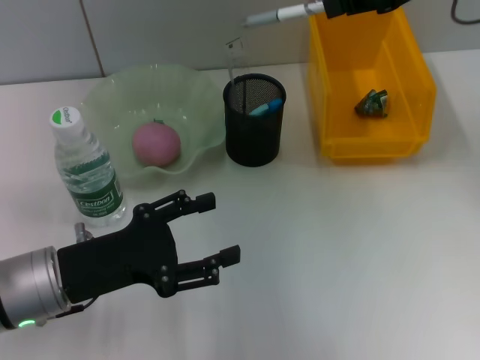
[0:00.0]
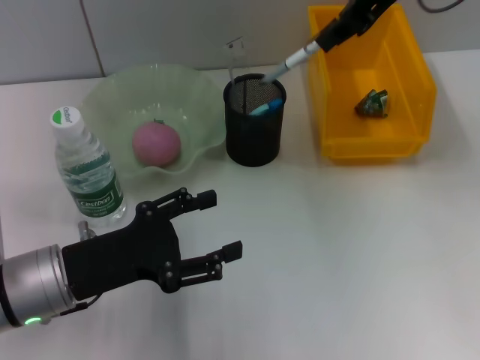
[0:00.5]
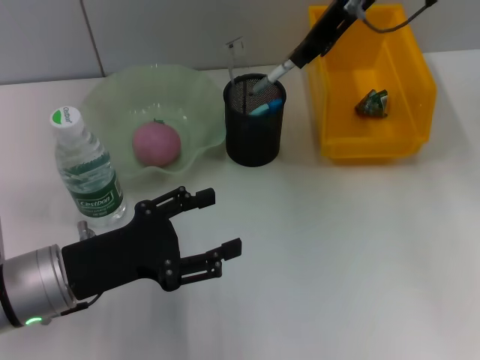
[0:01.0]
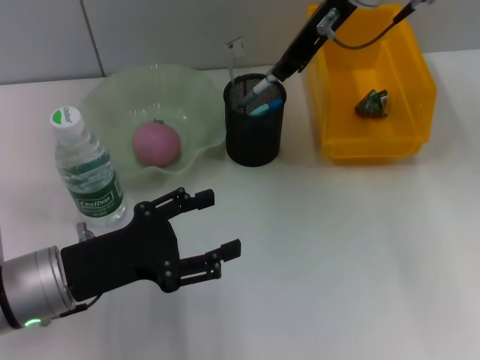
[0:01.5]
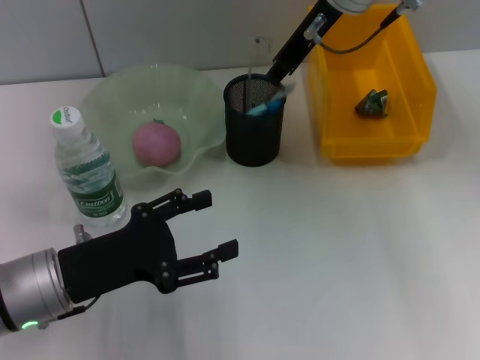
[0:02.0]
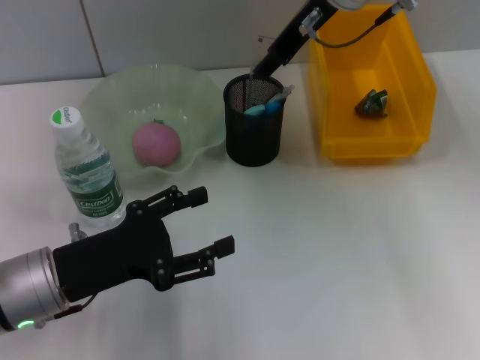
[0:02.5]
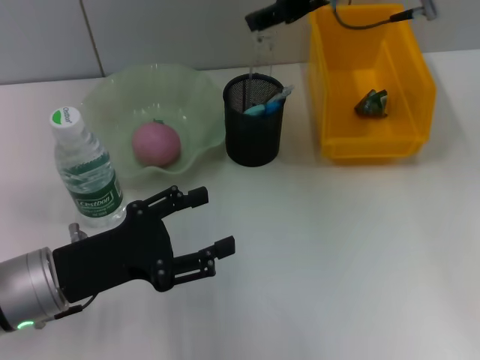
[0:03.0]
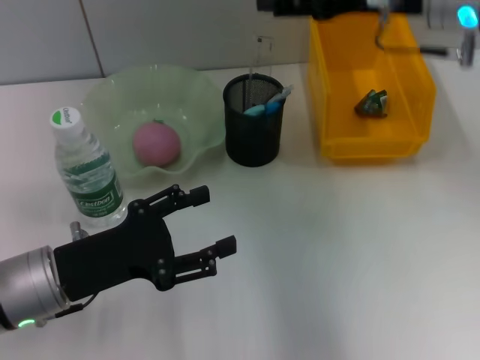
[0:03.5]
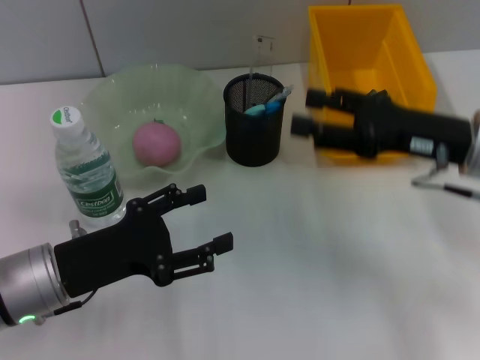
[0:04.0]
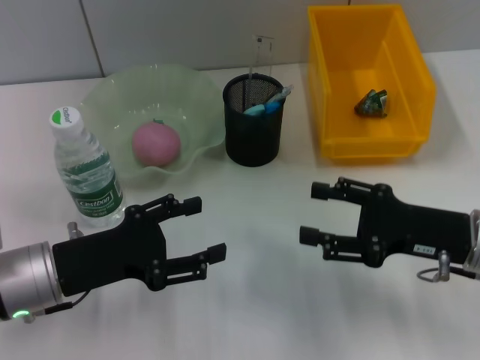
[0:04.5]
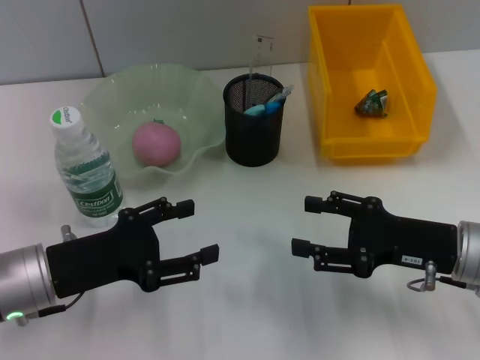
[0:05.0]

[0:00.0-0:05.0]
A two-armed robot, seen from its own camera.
Step, 0.0 to 2.0 s: Place the gray spring-action pen into the pen holder with the right hand.
0.0 to 2.5 s: The right gripper shifts some 15 cm to the left and forward, and opens.
2.5 to 5.0 s: The right gripper moves downward, backward and to the right, approximately 30 cm, and opens its fingers.

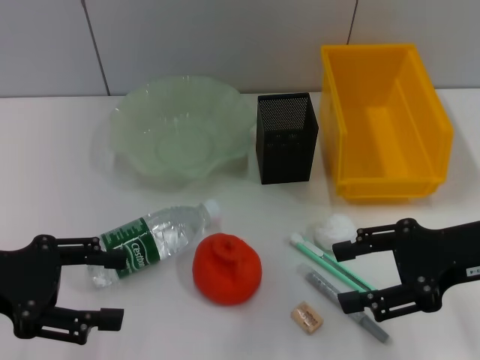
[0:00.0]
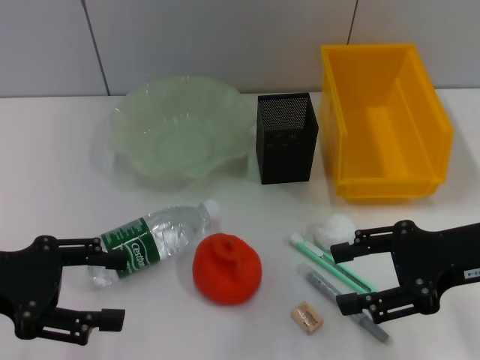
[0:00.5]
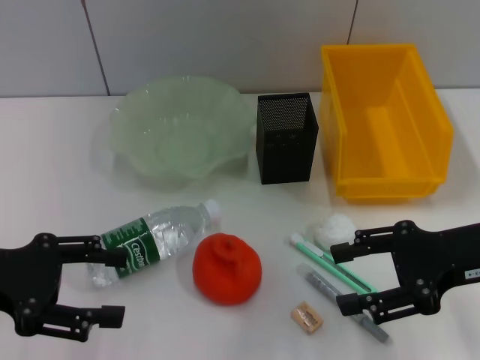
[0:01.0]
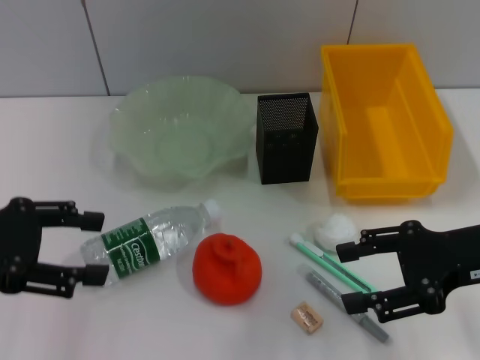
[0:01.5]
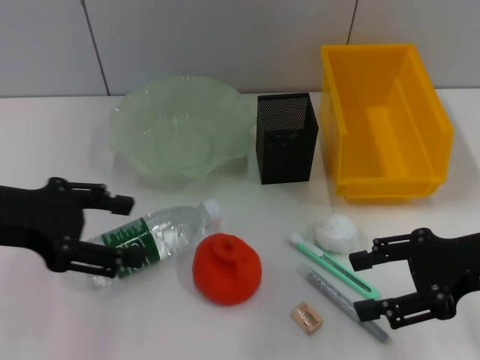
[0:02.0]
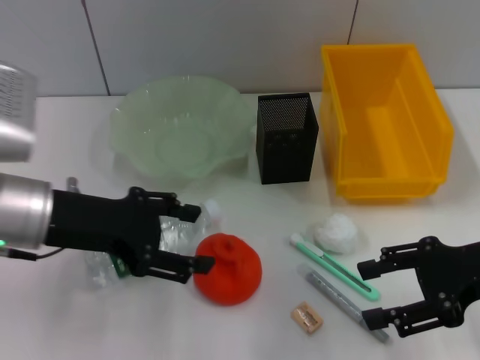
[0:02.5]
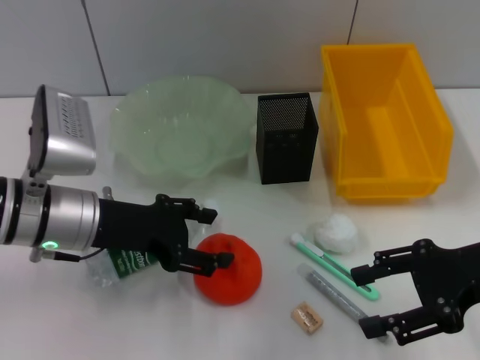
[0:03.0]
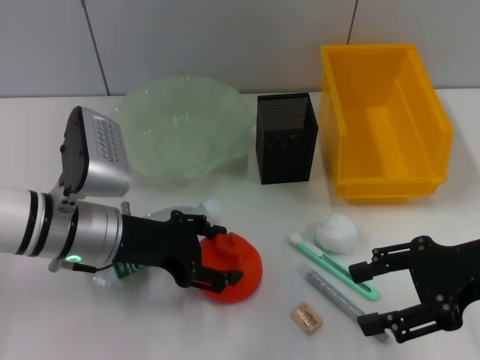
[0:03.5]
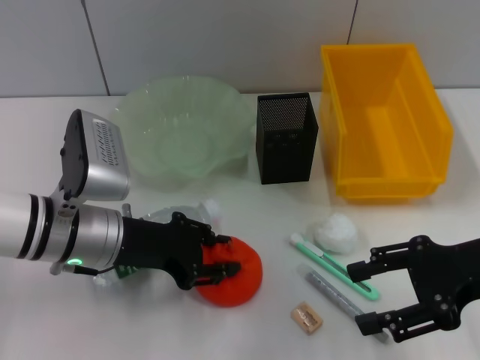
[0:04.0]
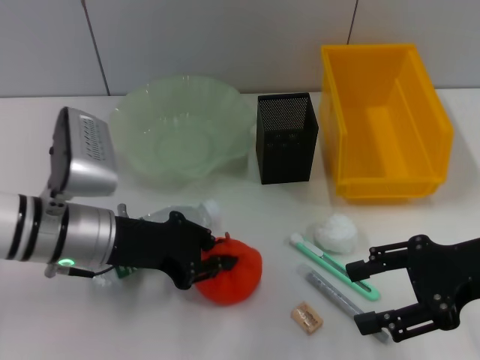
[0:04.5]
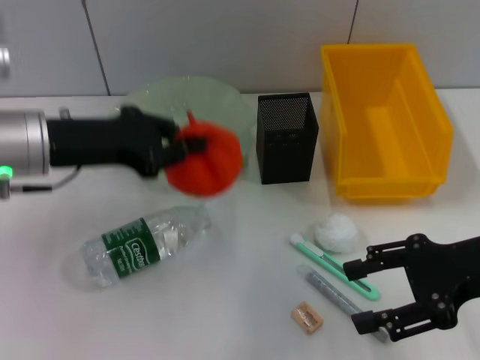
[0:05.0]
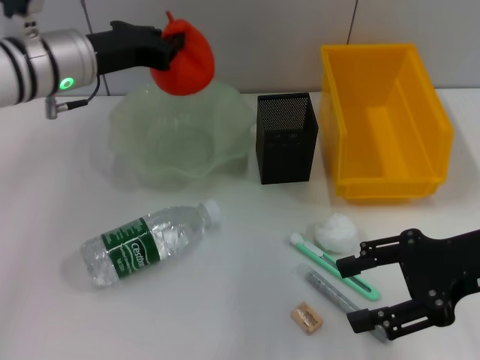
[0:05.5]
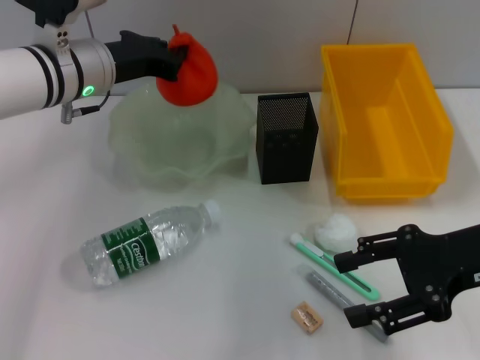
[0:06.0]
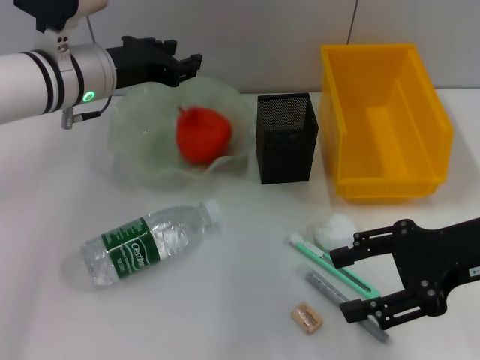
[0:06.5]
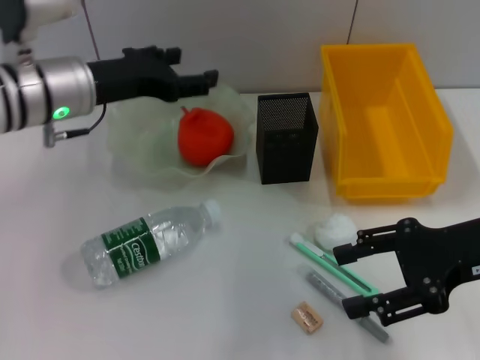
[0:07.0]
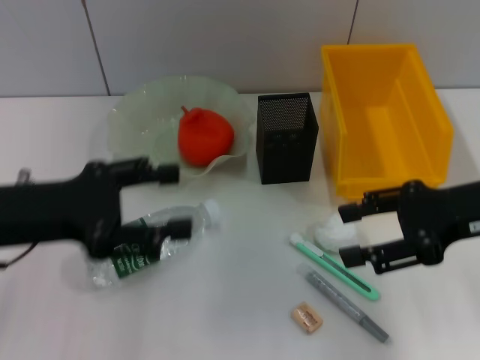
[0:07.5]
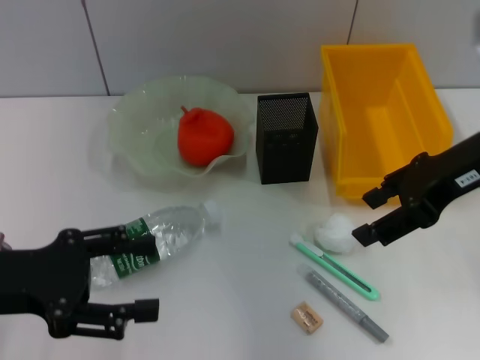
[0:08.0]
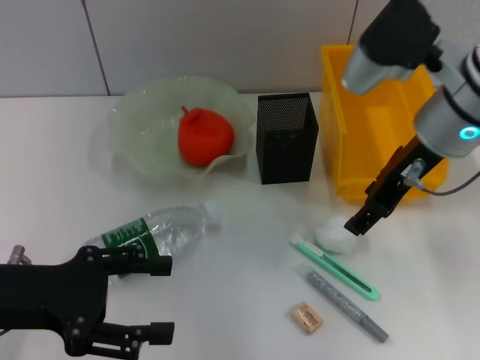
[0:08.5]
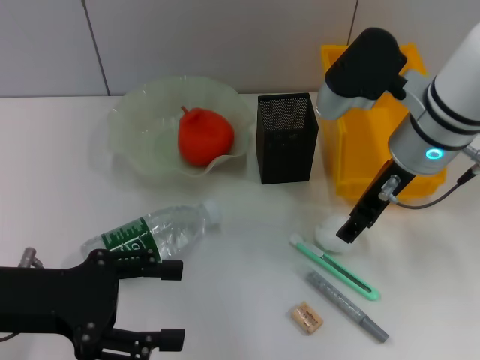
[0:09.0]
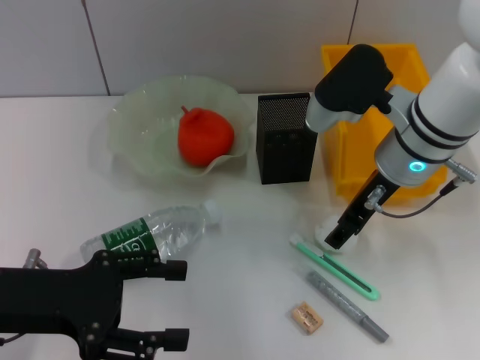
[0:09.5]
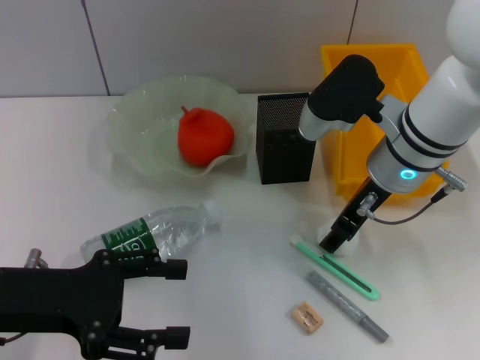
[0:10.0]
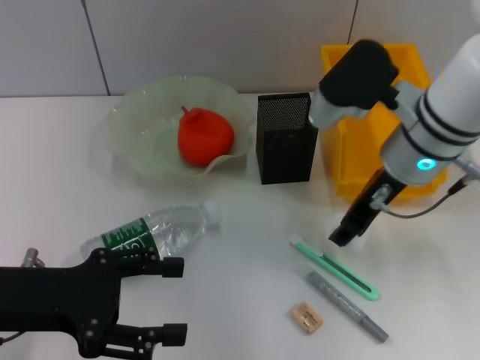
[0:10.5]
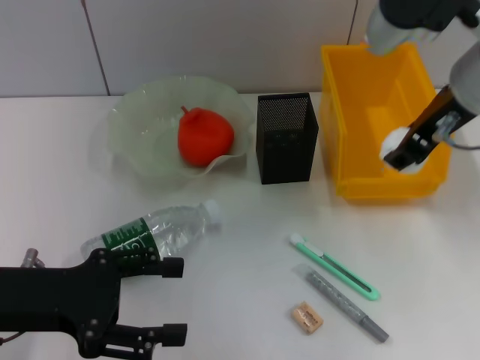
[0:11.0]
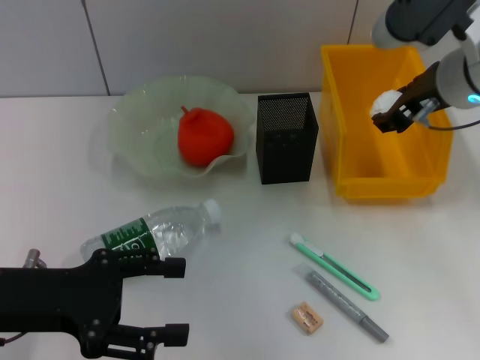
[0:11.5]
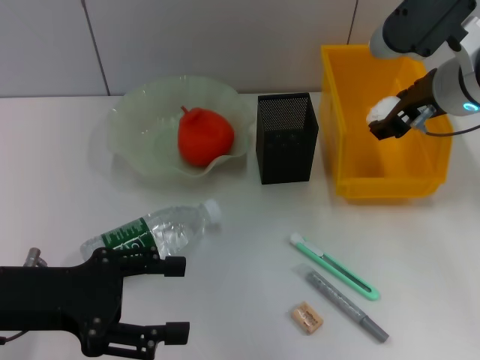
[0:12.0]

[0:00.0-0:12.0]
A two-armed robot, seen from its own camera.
Step, 0.0 to 4.0 s: Grab the orange with the left hand.
Step, 4.5 to 6.5 s: Place the orange into the fruit bowl with the left hand.
Step, 7.0 to 10.0 s: Grab the paper ball with the right hand.
0.0 to 2.0 s: The left gripper moves upward, some 5 cm.
2.0 to 4.0 s: The left gripper travels downward and to the right by roughly 15 cm.
4.0 to 6.0 s: The left gripper moves forward and upward, roughly 15 cm, and closes its fingers.
6.0 to 8.0 s: The left gripper goes roughly 20 cm backward and to the left, and opens, while the right gripper shifts roughly 10 cm upward and forward.
8.0 to 10.0 s: The right gripper shifts roughly 10 cm to the left and downward.
10.0 to 12.0 s: The right gripper heads to the right and upward, covering roughly 5 cm.

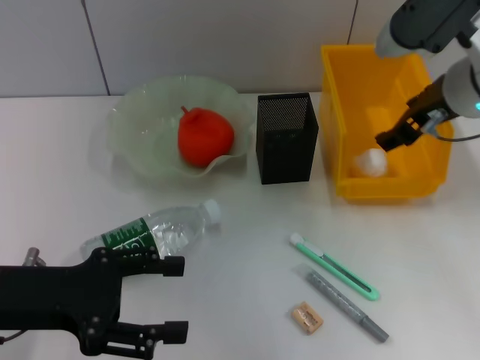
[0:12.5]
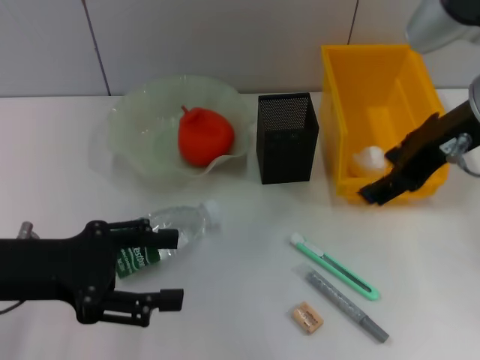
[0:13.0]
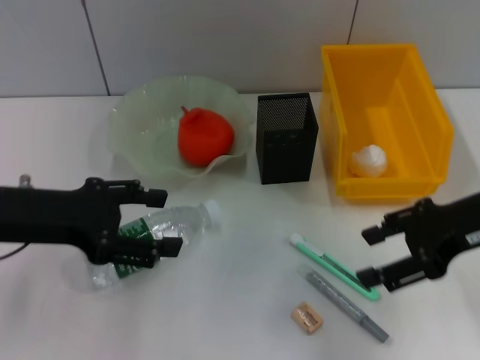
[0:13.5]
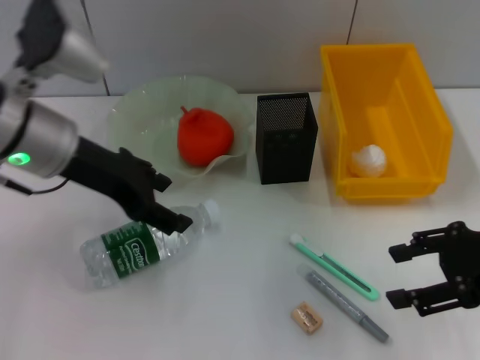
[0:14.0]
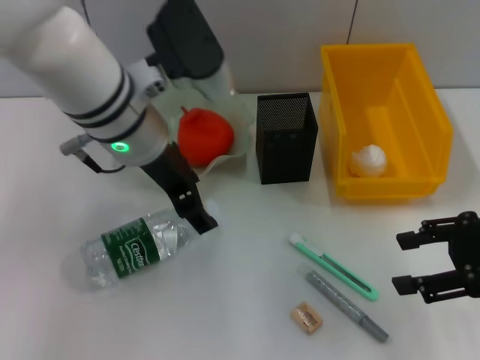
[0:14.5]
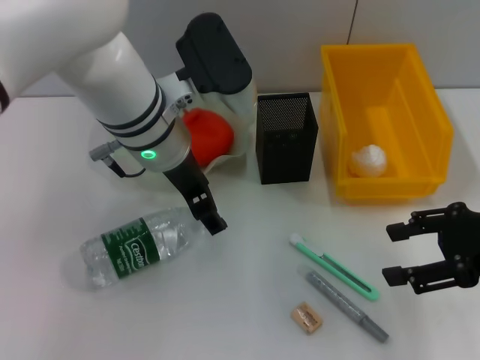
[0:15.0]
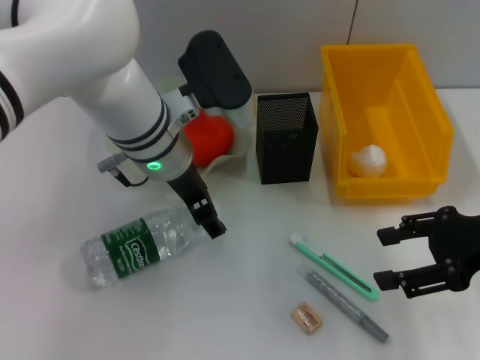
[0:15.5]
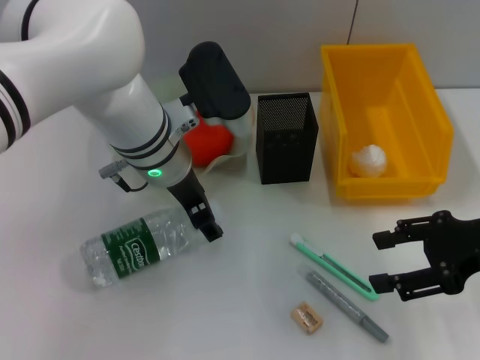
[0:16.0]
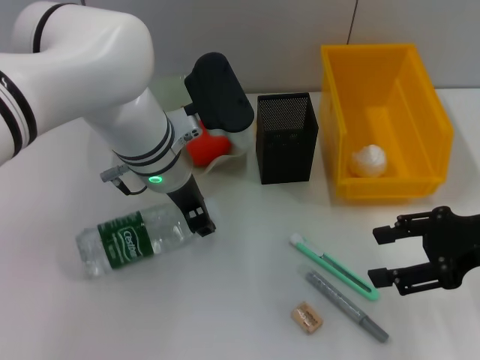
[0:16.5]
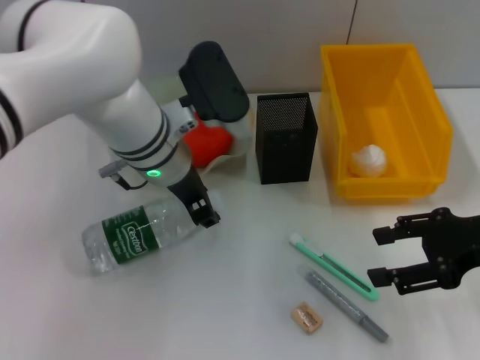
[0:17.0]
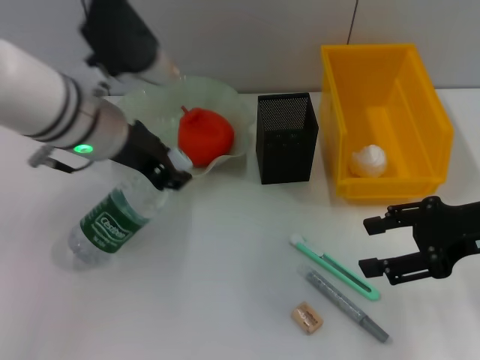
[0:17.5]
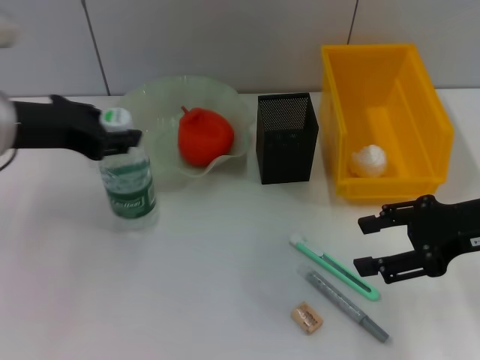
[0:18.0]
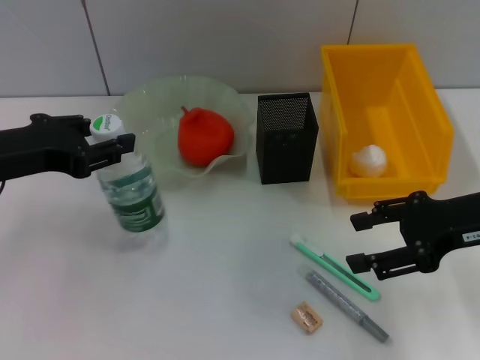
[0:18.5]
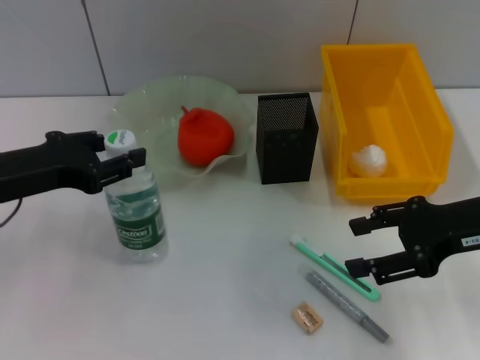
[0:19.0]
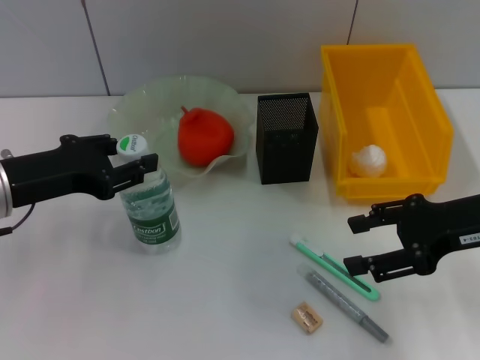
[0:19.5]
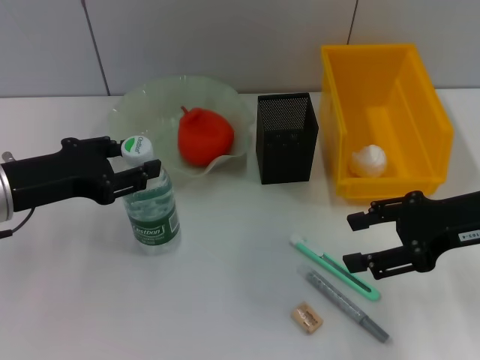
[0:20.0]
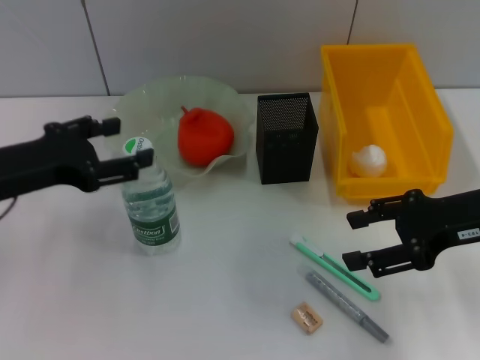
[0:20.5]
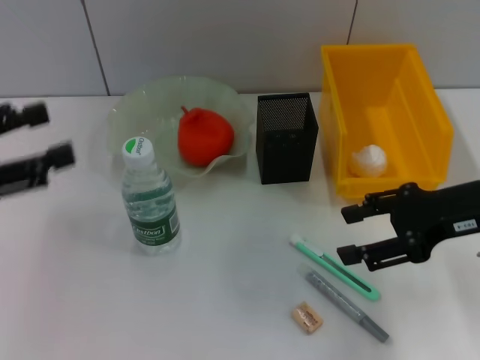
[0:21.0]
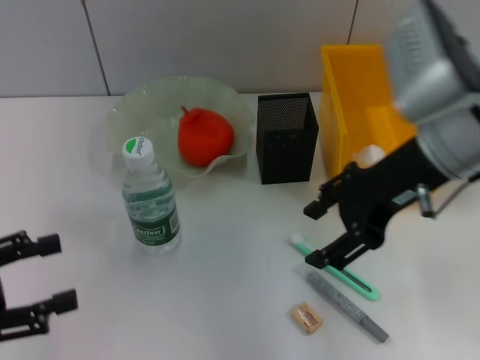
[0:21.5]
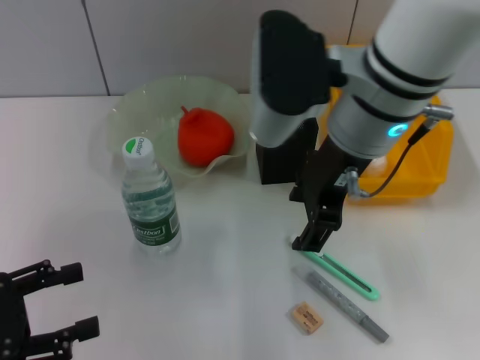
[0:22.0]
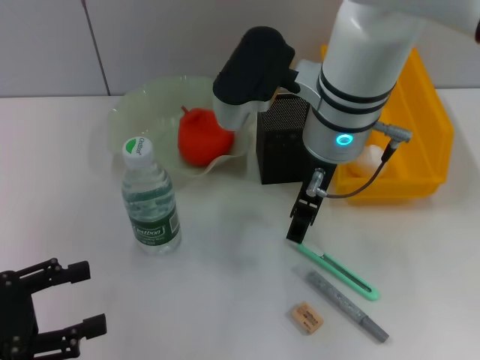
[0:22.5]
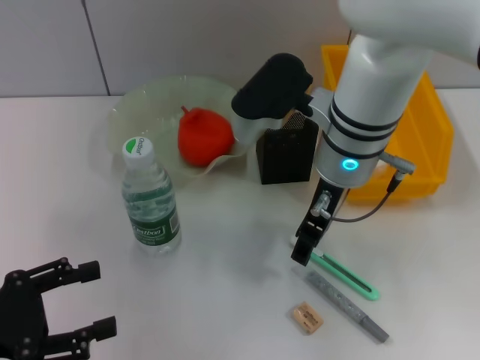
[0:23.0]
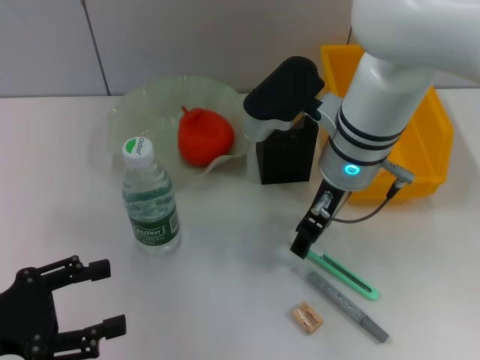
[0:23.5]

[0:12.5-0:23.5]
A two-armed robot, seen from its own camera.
Step, 12.5 to 16.5 s: Grab the water bottle with the left hand.
Step, 17.0 to 20.0 s: Place the water bottle on the table with the left hand.
12.5 to 14.5 s: The right gripper heads to the right, backward and downward, covering approximately 15 cm; the left gripper heads to the right, forward and upward, covering approximately 20 cm.
14.5 to 16.0 s: The left gripper shifts some 5 cm downward.
16.0 to 18.0 s: The left gripper is displaced to the left by approximately 15 cm, and closes its fingers.
18.0 to 20.0 s: The left gripper moves downward, about 5 cm.
20.0 to 21.5 s: The right gripper travels to the left and upward by some 15 cm; the left gripper is displaced backward and to the left by some 15 cm, and opens its fingers.
21.5 to 23.5 s: The right gripper heads to the left and downward, covering roughly 10 cm.
